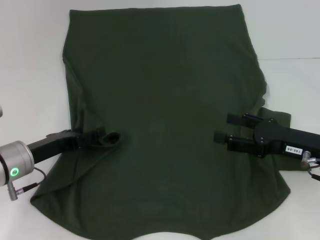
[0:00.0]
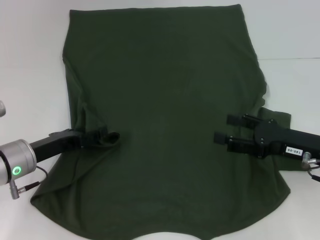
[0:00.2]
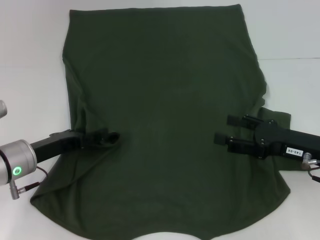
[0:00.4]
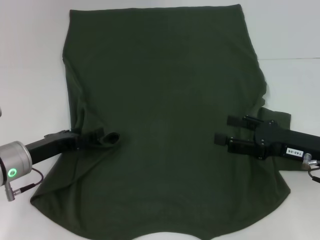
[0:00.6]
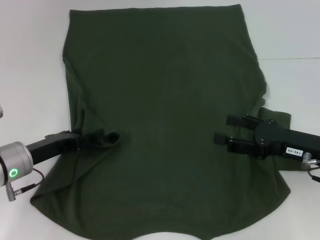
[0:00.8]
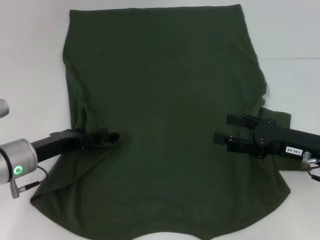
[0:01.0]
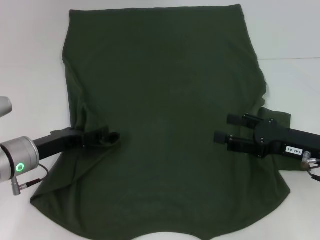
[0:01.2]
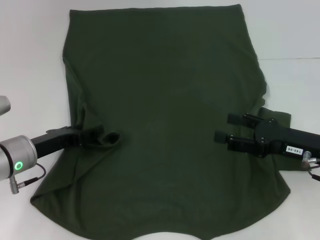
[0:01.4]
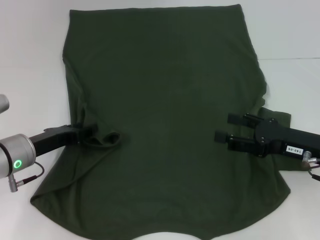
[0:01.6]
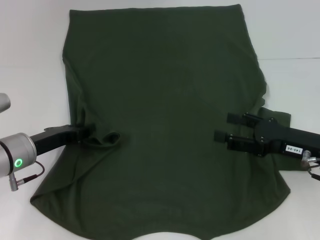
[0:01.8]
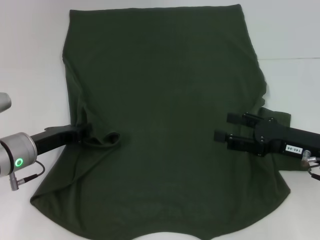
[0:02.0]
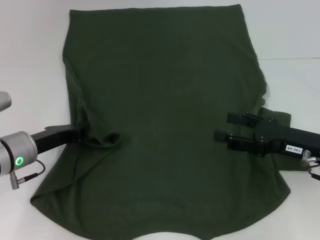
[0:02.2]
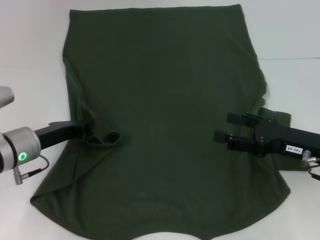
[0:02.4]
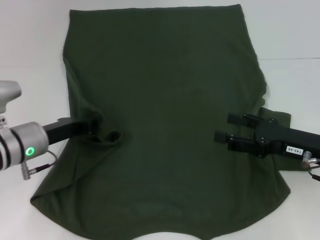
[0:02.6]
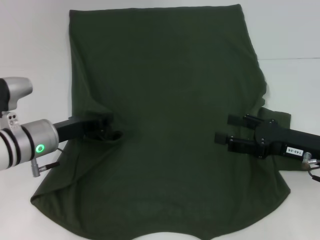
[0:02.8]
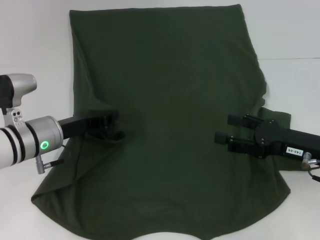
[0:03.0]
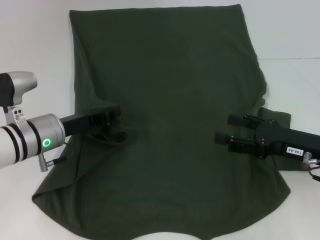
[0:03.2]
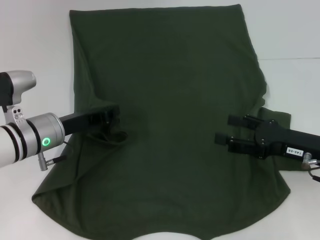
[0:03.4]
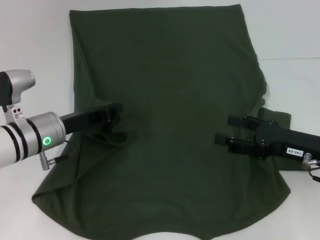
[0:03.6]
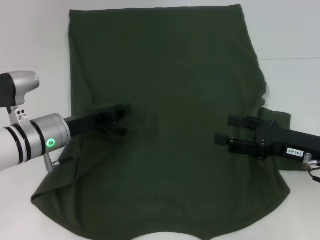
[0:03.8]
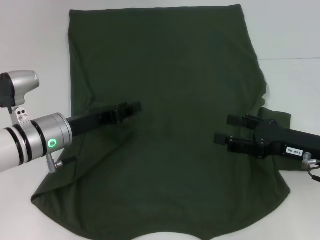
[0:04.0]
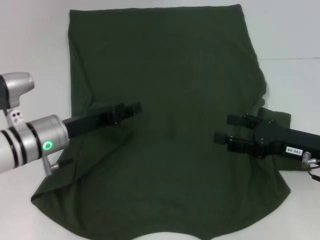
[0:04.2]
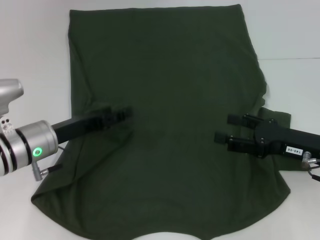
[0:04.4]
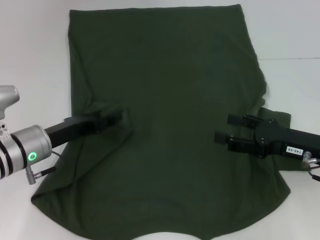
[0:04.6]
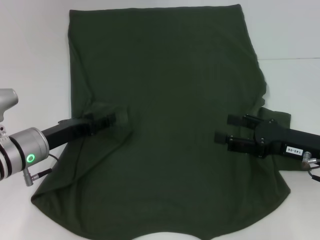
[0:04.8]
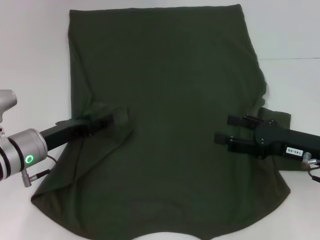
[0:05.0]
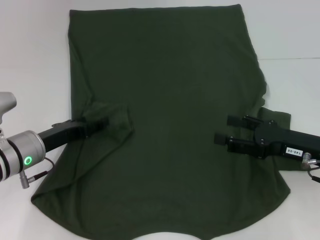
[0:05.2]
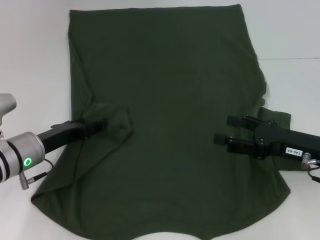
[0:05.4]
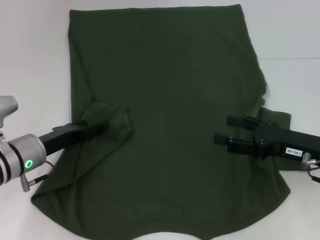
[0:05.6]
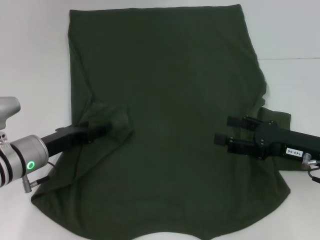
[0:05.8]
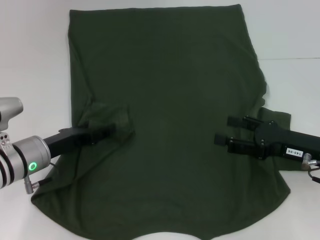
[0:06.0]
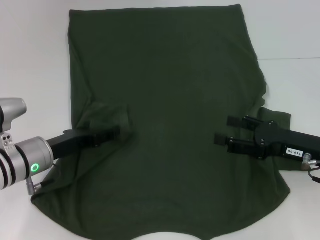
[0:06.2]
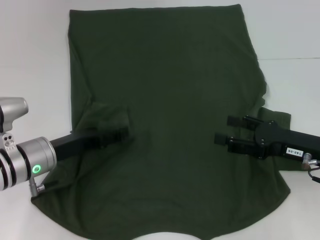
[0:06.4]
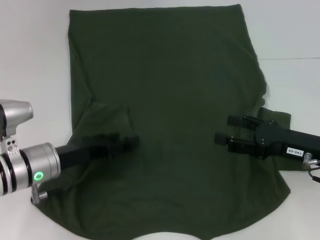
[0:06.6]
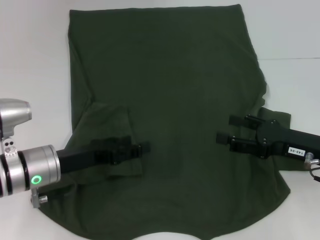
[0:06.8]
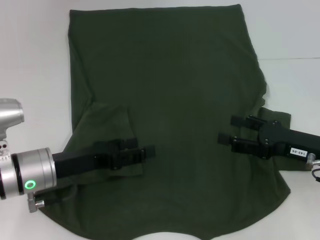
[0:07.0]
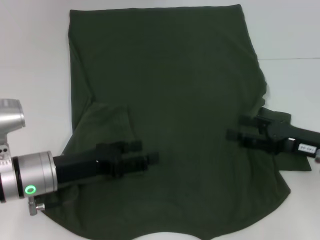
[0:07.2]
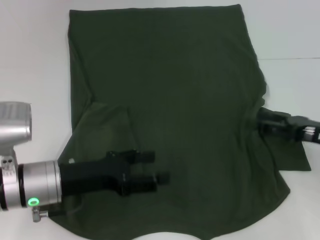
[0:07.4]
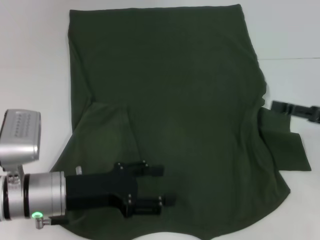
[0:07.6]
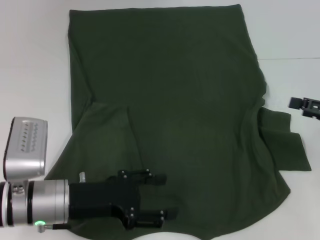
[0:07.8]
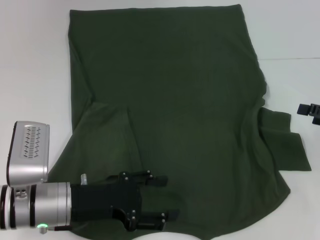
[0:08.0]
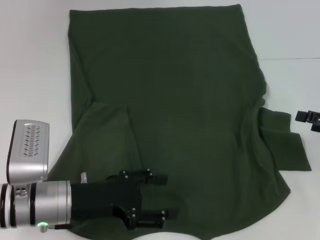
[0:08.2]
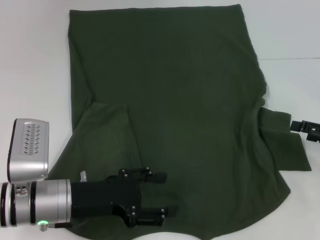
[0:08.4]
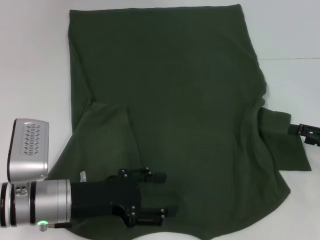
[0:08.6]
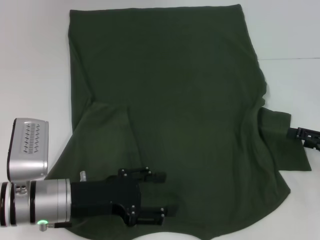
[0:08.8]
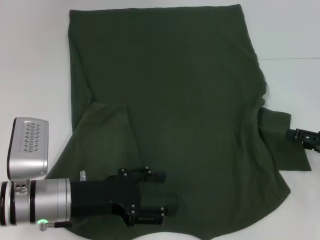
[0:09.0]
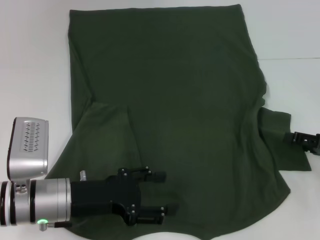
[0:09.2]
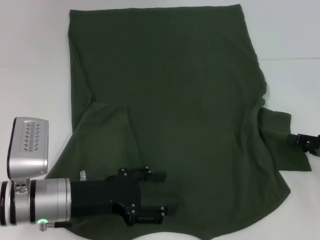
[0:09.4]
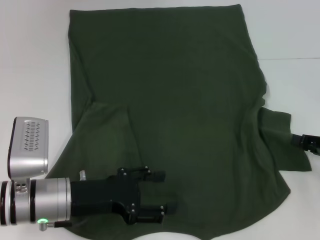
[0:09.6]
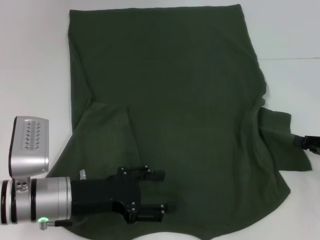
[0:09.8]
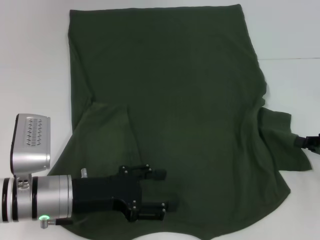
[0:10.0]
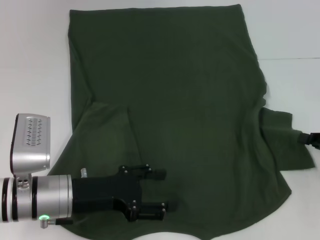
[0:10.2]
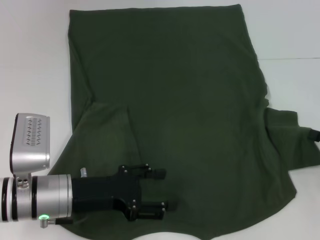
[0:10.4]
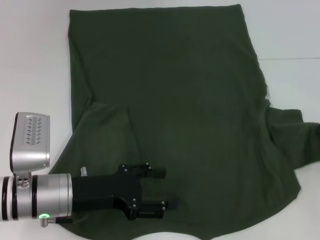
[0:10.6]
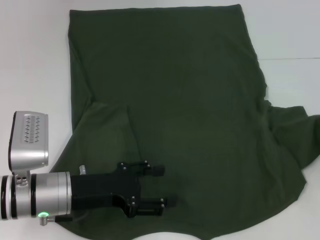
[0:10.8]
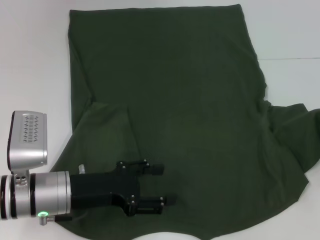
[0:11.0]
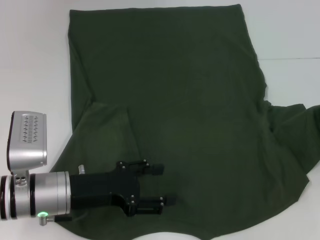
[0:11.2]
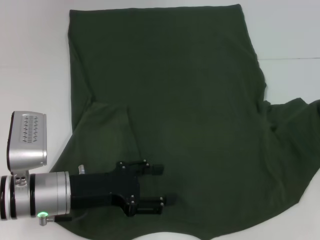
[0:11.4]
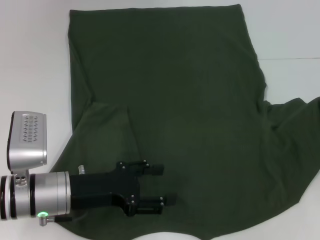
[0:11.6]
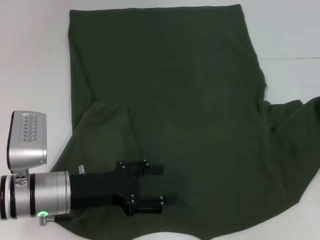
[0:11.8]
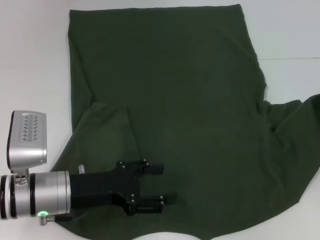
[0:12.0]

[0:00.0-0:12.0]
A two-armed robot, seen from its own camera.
Step, 0:00.0 to 0:07.0: Fold the bottom left sleeve with your left hand.
0:00.0 to 0:01.6: The grippers make only small movements.
0:01.6 to 0:03.0: The left gripper closes its fingers.
0:03.0 to 0:04.4: The left gripper opens its fingers.
0:04.4 to 0:06.0: There are only small adjustments of the grippers.
0:06.0 to 0:07.6: The right gripper travels to the right by about 10 cm; the left gripper goes some 5 cm backward.
0:07.6 to 0:09.0: The right gripper shifts by some 5 cm.
0:09.0 to 0:10.4: The right gripper closes its fingers.
0:10.4 to 0:12.0: The right gripper heads forward, covering approximately 5 cm.

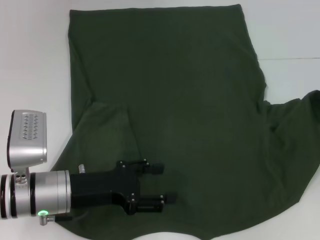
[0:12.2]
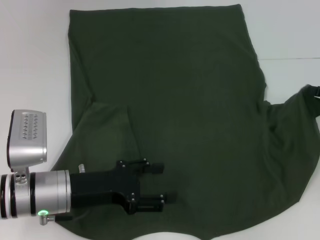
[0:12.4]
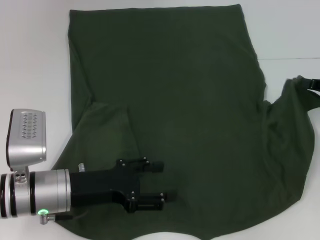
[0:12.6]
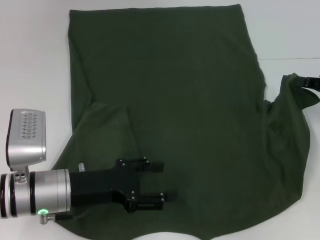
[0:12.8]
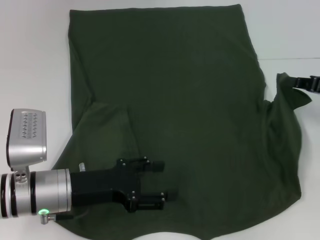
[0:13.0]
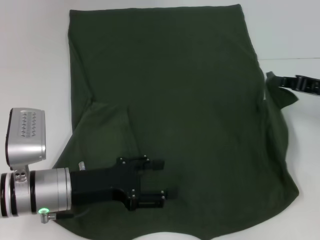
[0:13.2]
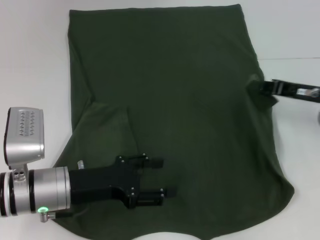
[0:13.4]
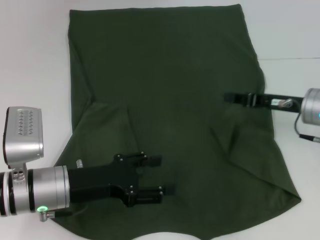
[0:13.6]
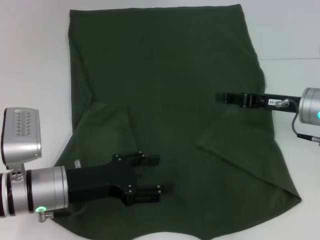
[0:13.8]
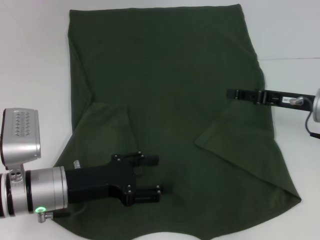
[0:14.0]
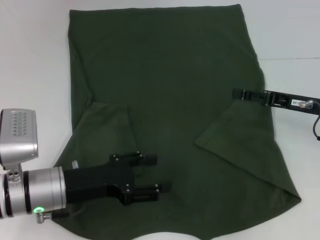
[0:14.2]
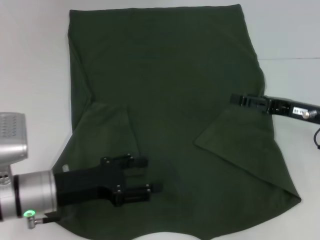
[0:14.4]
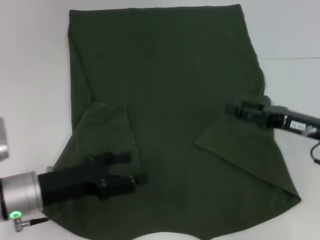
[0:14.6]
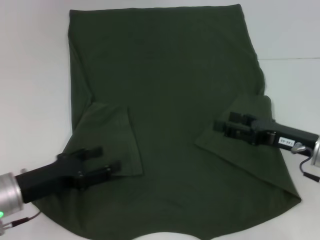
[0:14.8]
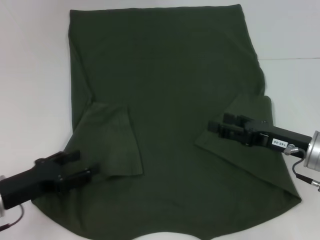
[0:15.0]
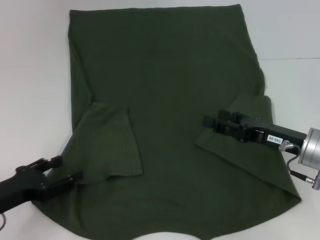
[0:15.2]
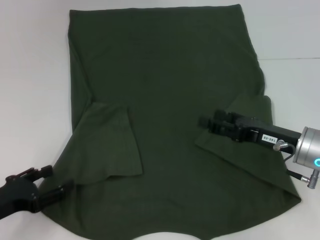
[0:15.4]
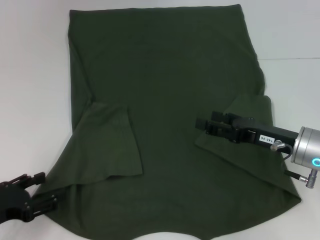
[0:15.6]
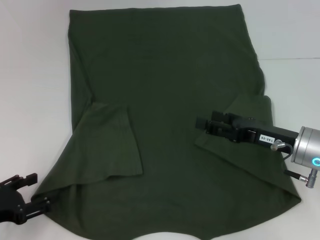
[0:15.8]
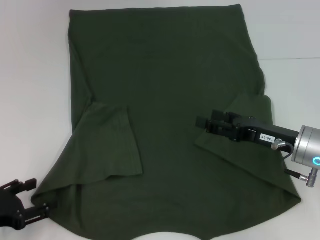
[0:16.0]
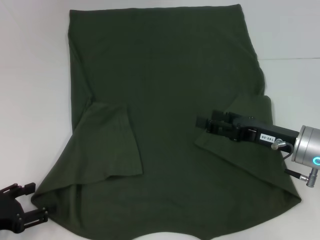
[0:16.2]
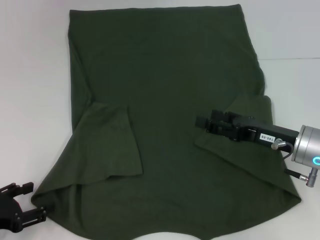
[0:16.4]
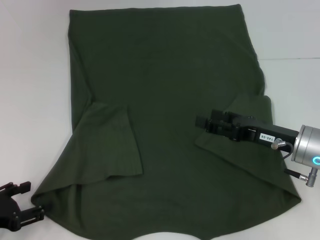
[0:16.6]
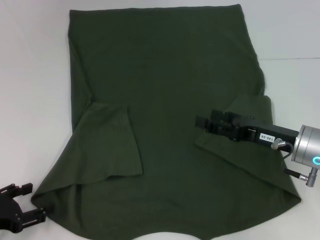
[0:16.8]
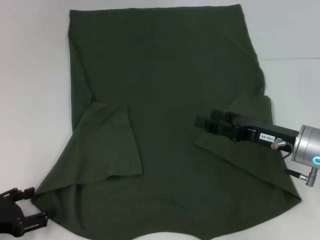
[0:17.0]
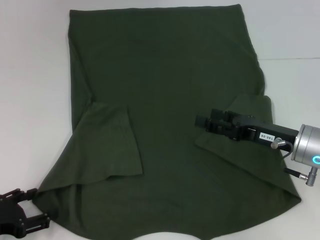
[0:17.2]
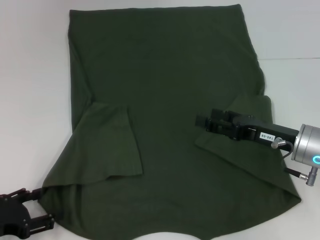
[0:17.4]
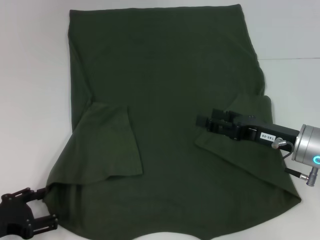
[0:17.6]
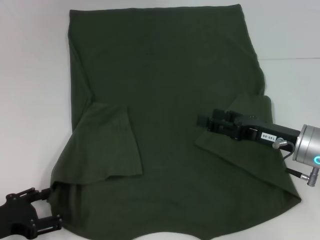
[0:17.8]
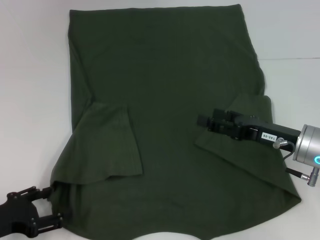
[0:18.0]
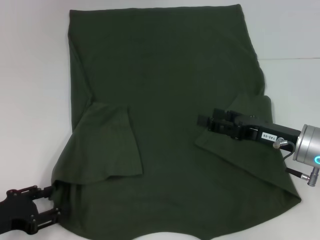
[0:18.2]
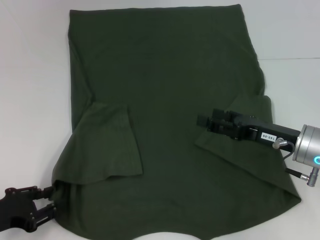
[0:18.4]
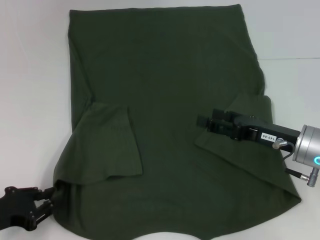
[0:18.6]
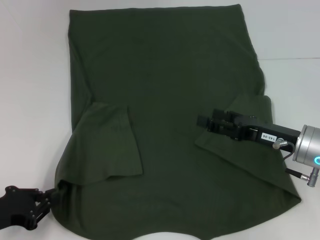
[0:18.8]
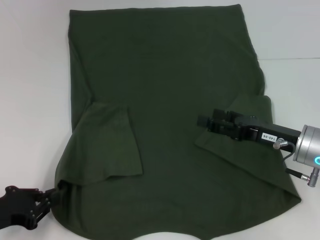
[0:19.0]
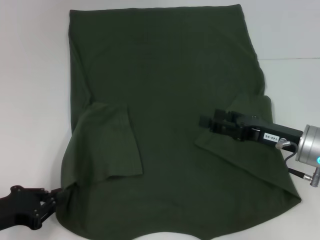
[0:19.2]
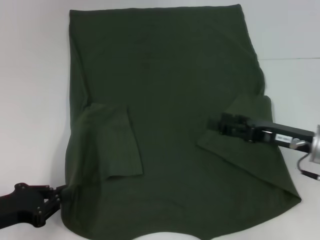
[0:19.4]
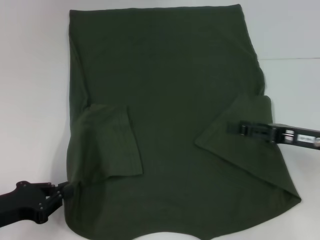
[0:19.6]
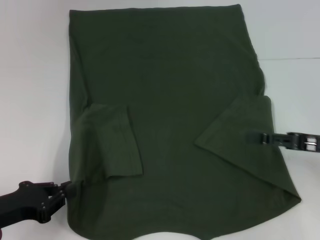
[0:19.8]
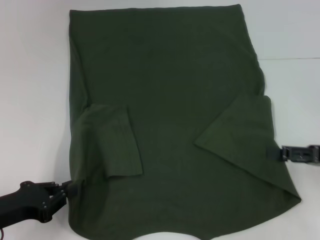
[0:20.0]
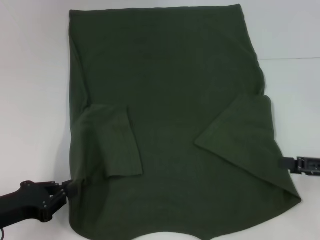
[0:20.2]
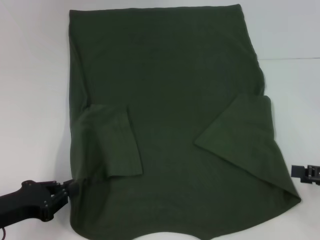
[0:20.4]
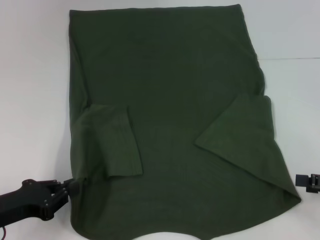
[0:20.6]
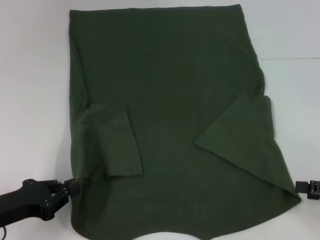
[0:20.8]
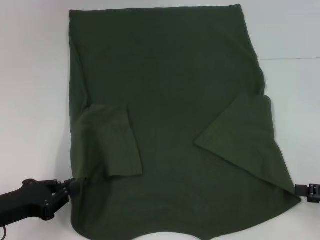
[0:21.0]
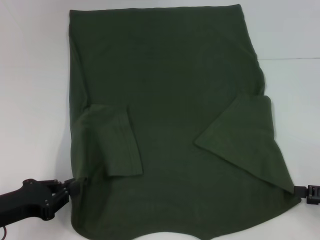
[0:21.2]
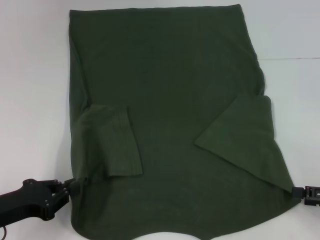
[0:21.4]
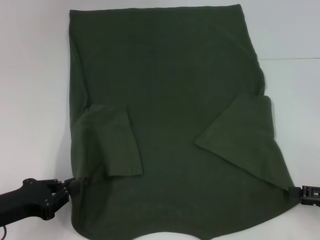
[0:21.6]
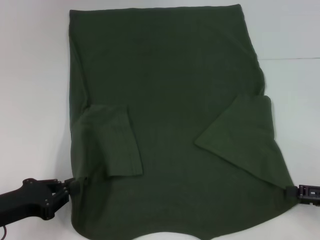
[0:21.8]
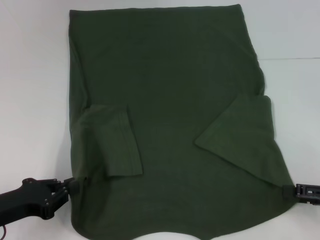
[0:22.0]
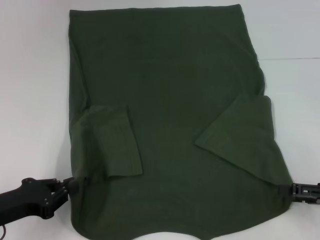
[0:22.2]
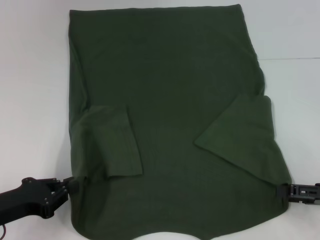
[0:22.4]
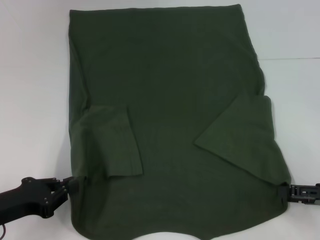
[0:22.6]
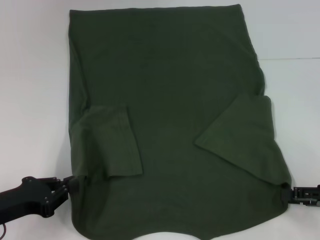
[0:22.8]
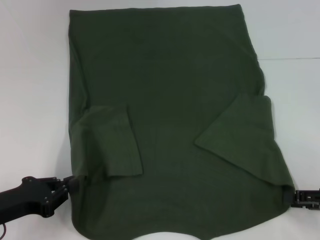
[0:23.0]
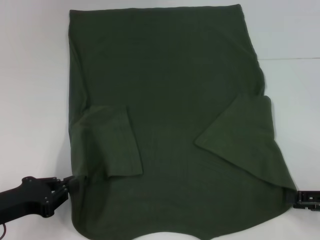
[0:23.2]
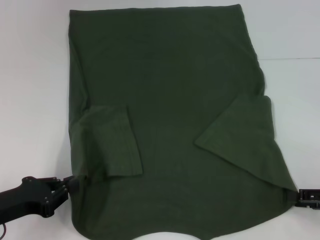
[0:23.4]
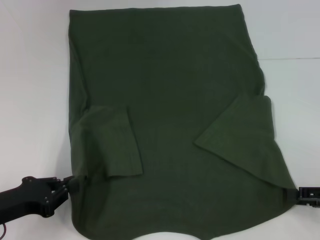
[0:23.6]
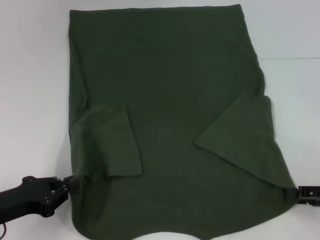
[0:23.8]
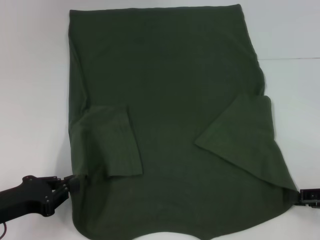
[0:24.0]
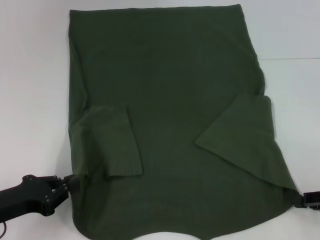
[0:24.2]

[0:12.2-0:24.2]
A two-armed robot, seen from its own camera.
Step, 0:14.0 to 0:19.0: Grab the bottom left corner with your left hand.
0:12.2 to 0:13.8: The right gripper goes approximately 15 cm to the left.
0:13.8 to 0:15.2: The left gripper is displaced to the left by roughly 10 cm; the right gripper heads backward, covering roughly 5 cm, and opens up.
0:15.2 to 0:18.2: The grippers move only a little.
0:18.2 to 0:19.8: The right gripper travels to the right by about 10 cm; the left gripper closes.
0:19.8 to 0:21.2: The right gripper travels to the right and backward by about 10 cm.
0:21.2 to 0:22.6: The grippers move only a little.
0:22.6 to 0:24.2: The right gripper closes up.
